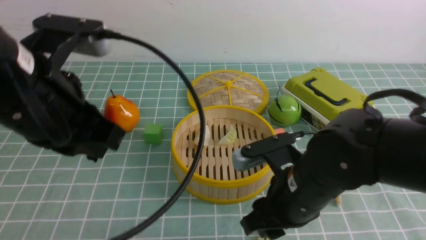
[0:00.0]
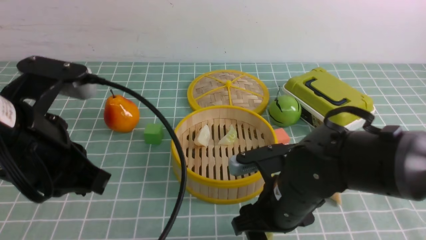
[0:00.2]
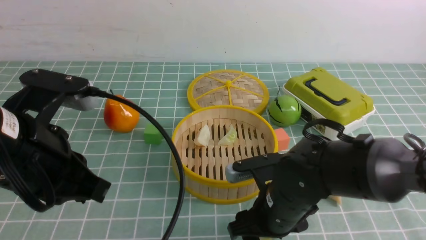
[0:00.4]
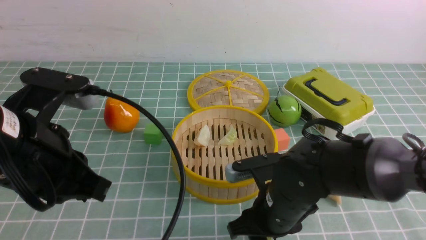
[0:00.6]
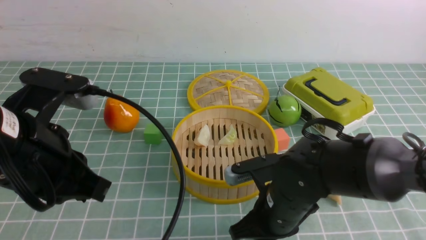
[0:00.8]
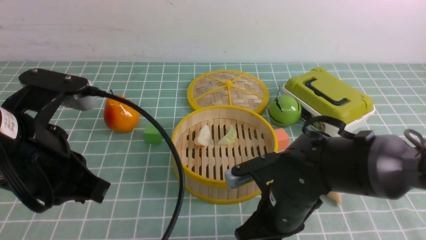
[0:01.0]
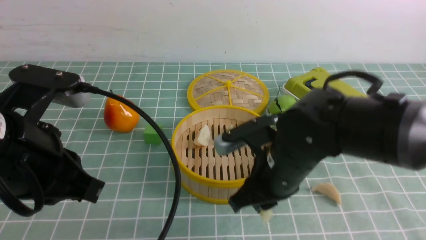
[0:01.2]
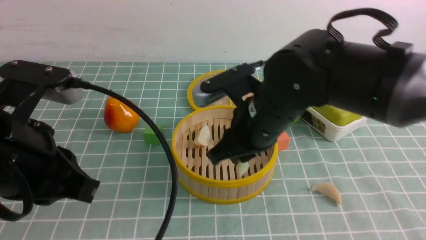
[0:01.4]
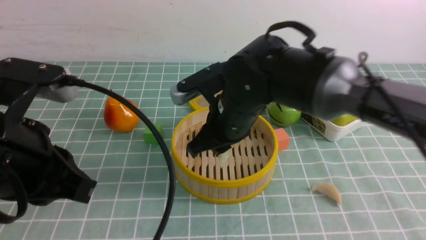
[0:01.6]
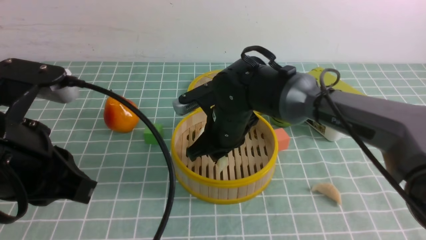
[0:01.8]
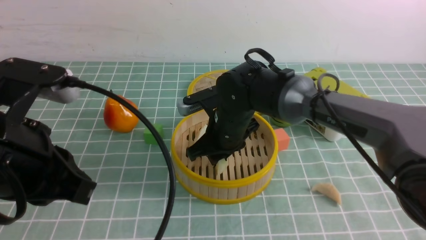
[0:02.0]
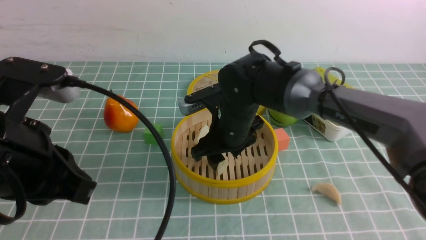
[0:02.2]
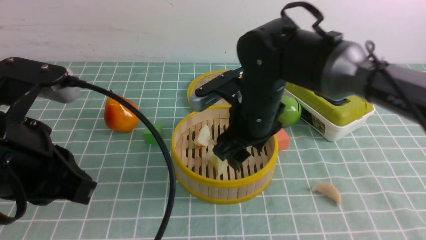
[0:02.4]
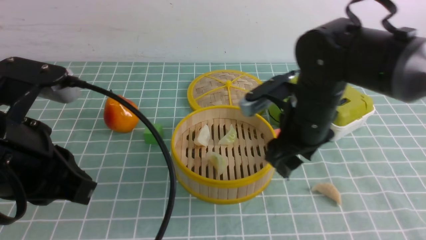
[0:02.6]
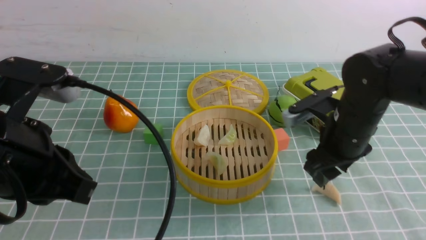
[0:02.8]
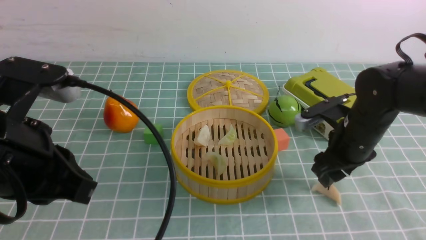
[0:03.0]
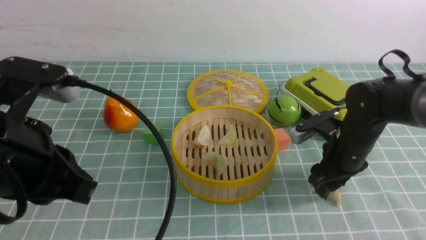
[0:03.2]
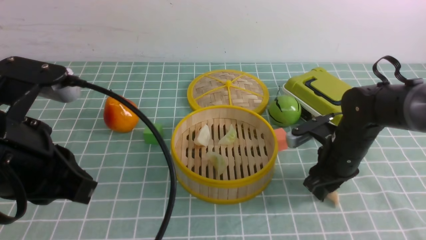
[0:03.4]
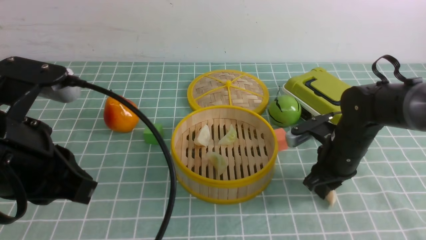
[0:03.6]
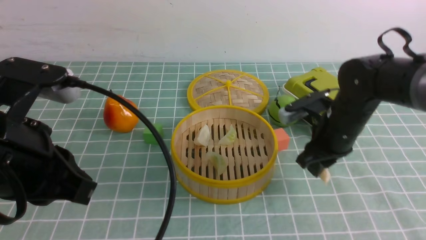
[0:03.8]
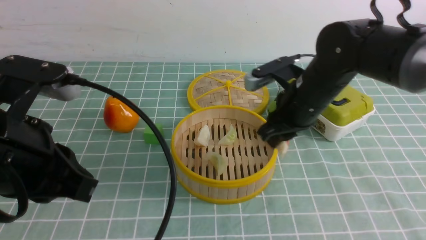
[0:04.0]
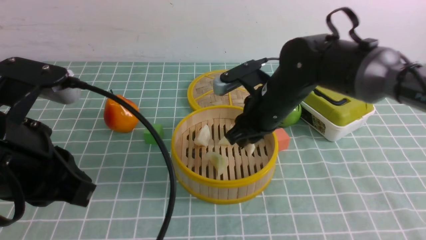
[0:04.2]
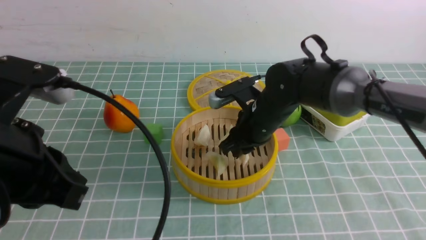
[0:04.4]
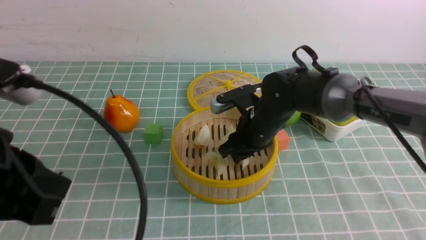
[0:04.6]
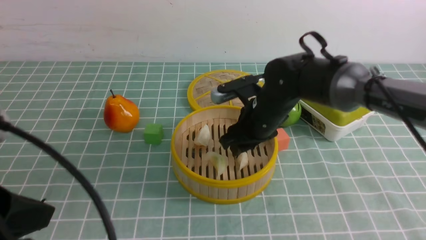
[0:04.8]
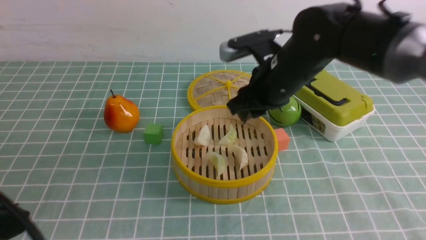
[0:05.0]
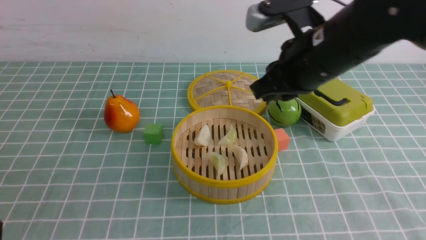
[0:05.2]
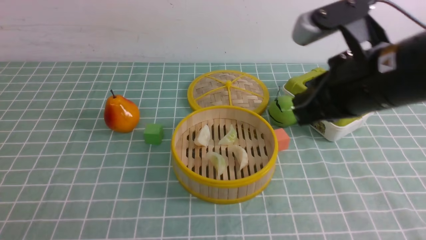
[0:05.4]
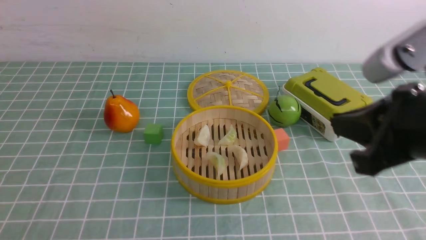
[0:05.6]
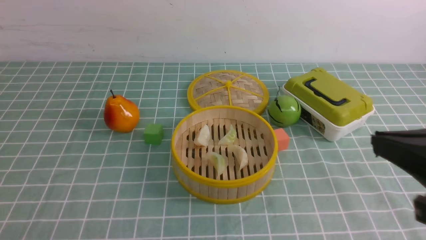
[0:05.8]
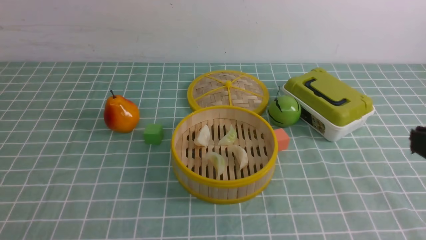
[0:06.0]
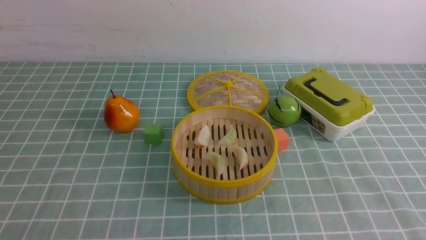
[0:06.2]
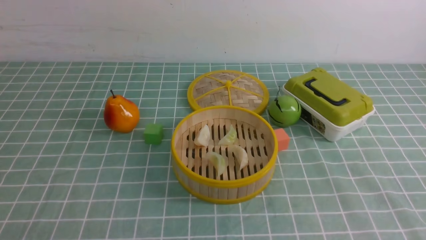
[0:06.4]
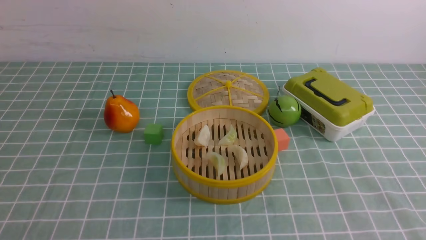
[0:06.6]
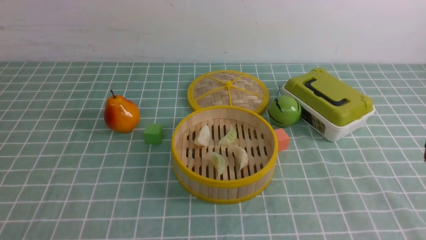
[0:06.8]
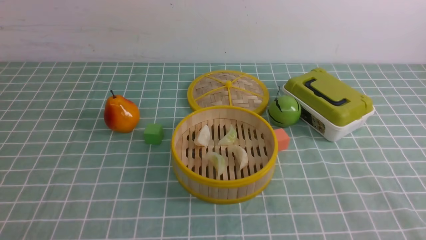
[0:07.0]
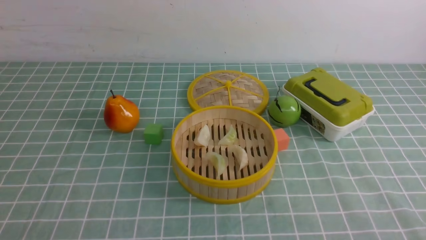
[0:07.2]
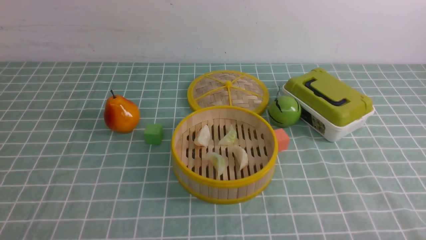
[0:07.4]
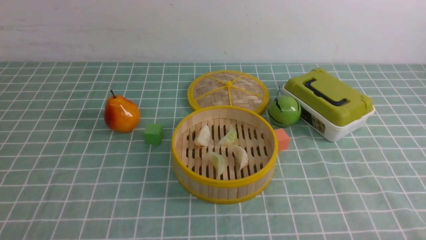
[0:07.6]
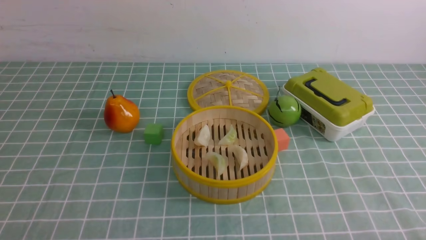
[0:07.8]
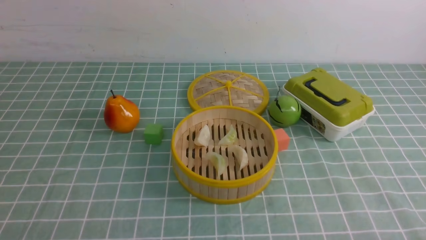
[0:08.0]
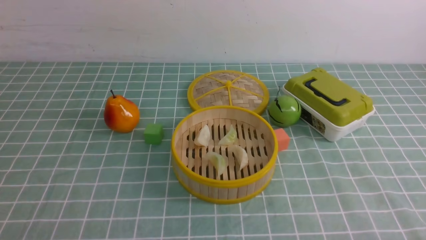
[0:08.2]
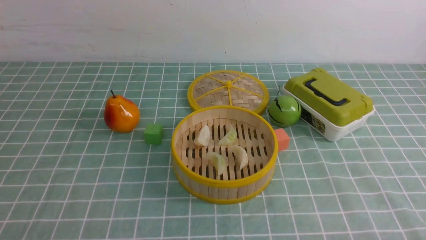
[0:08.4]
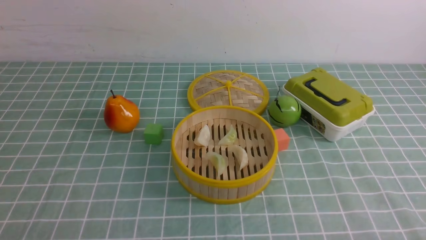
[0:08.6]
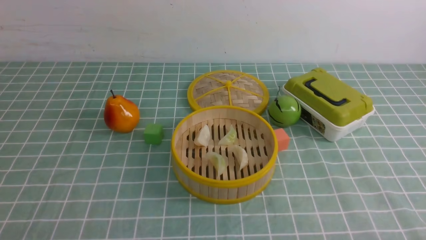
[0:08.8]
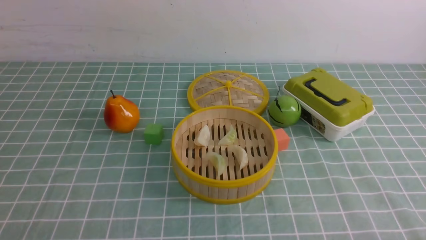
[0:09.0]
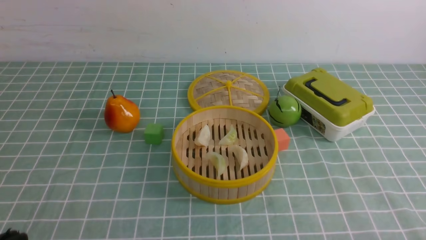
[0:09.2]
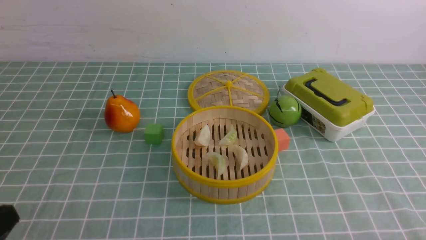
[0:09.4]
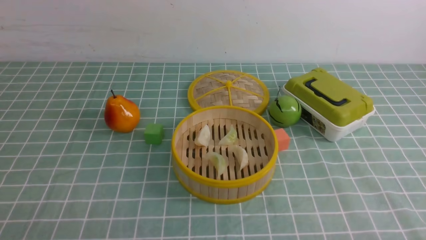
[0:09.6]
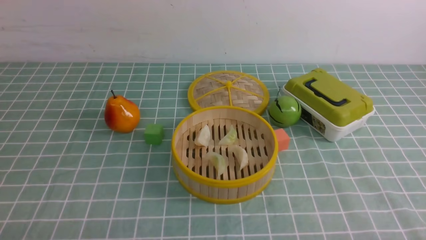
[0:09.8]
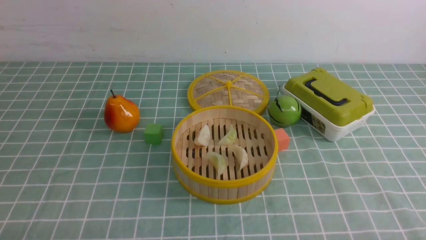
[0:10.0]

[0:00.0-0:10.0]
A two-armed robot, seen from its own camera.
Task of the whole recording: put the dumplings into the steamer on the table with the blue tablecloth.
Step, 0:00.0 to 0:01.0: use the right arm to grab a dumpling.
Step, 0:01.2 to 0:02.2: use the right arm to put the dumpling into the steamer.
Step, 0:02.4 to 0:03.8: use the right arm to grab a dumpling.
Step, 0:04.0 to 0:05.0: use the right arm to put the dumpling into the steamer.
0:00.0 to 0:01.4: The right gripper is displaced forward by roughly 5 cm, travels downward and back again, approximately 10 cm each way, and opens, then closes once more. Meanwhile the left gripper heads backward, covering approximately 5 cm.
0:01.4 to 0:02.8: The right gripper is displaced to the right and forward by approximately 10 cm, and opens its fingers.
0:02.8 to 0:04.2: The right gripper closes its fingers.
0:04.2 to 0:05.8: The right gripper moves backward, upward and to the right, some 30 cm, and closes, while the left gripper is displaced backward and to the left by roughly 15 cm.
0:05.8 to 0:07.2: The right gripper moves downward, backward and to the right, some 15 cm.

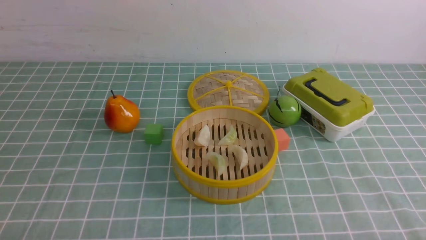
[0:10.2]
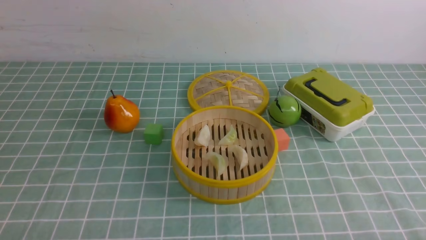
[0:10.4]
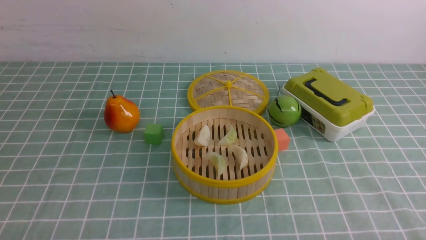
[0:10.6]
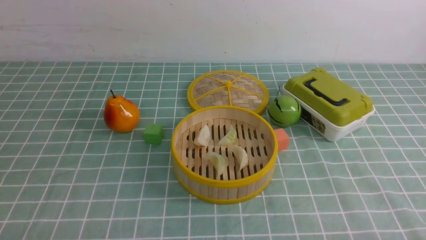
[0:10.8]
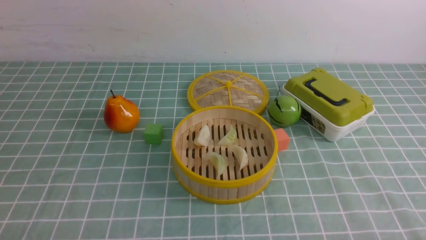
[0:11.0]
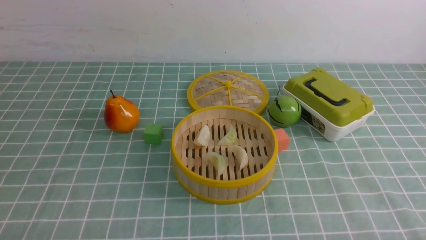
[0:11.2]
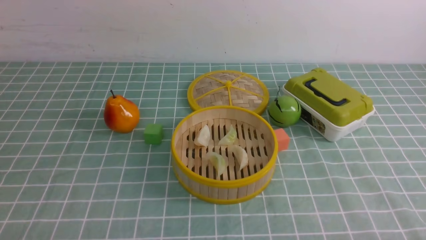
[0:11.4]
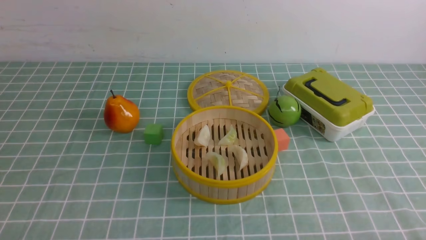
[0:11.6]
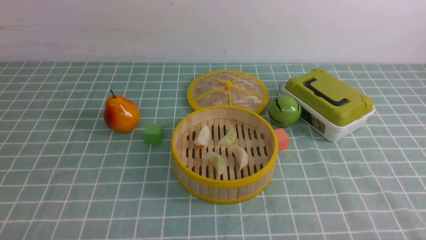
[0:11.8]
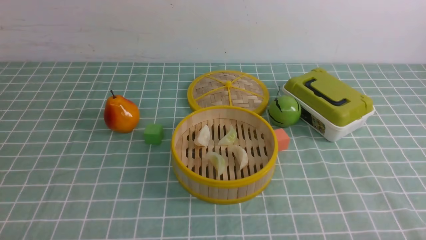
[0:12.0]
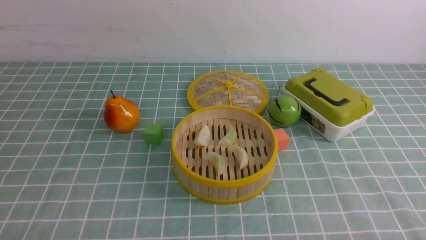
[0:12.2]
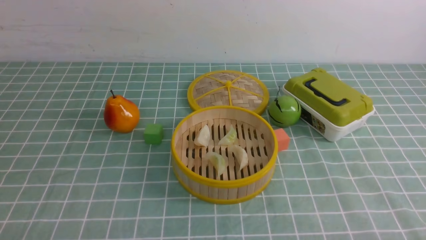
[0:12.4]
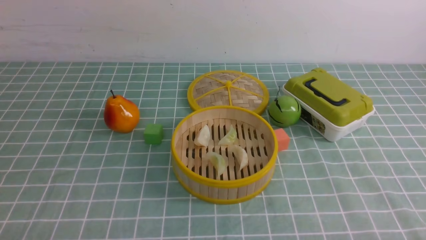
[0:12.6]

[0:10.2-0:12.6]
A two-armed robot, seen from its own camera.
Task of the whole recording: put the dumplings into the steamer on the table with the blue tablecloth.
0:10.2 to 0:12.6: Both grippers stay put.
